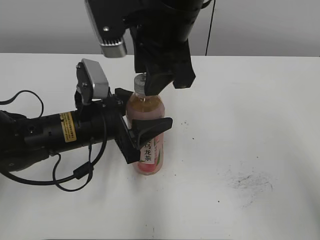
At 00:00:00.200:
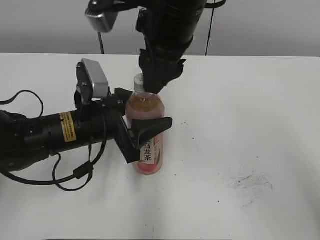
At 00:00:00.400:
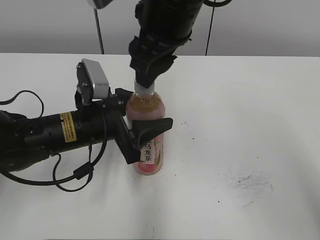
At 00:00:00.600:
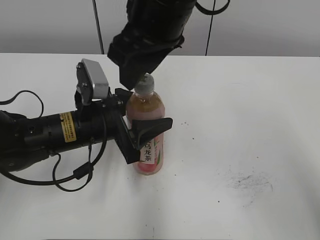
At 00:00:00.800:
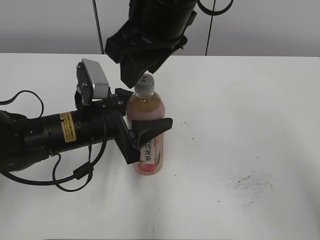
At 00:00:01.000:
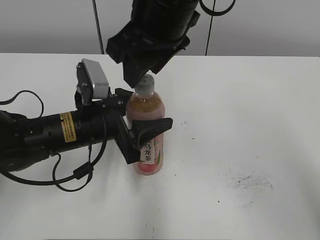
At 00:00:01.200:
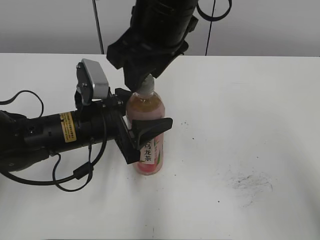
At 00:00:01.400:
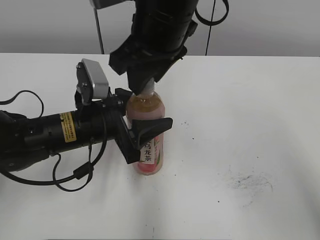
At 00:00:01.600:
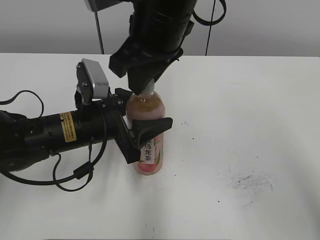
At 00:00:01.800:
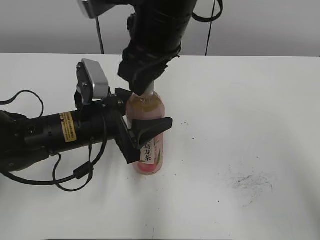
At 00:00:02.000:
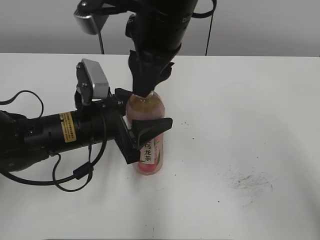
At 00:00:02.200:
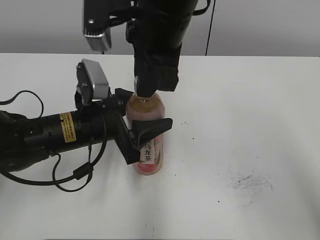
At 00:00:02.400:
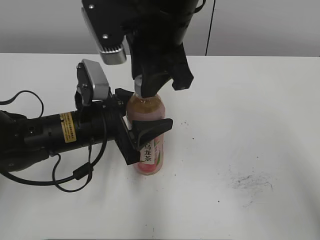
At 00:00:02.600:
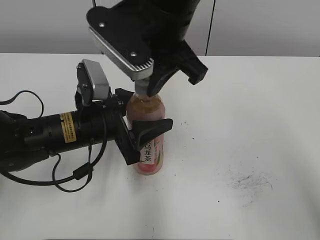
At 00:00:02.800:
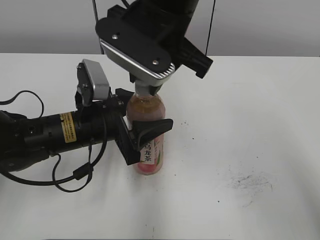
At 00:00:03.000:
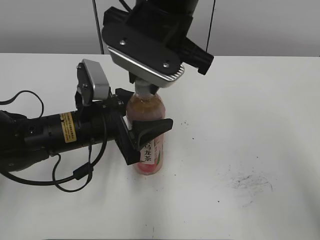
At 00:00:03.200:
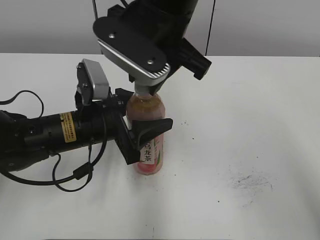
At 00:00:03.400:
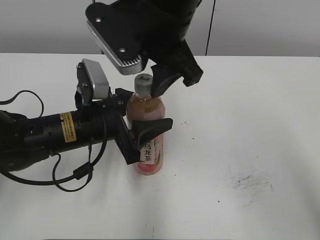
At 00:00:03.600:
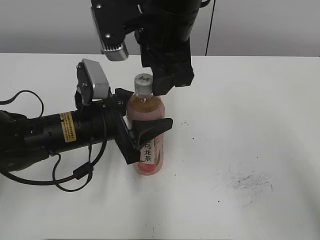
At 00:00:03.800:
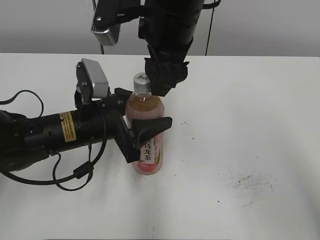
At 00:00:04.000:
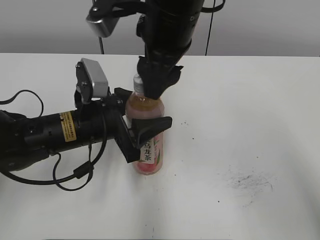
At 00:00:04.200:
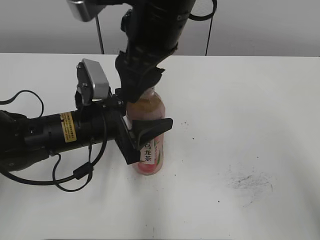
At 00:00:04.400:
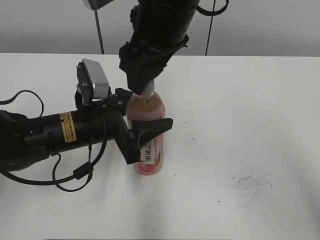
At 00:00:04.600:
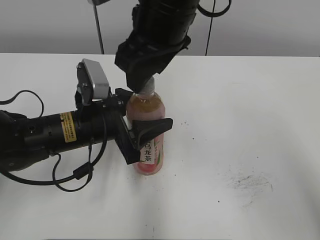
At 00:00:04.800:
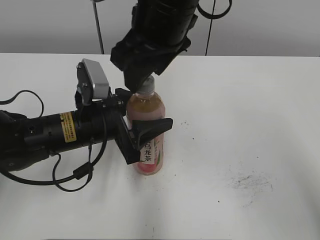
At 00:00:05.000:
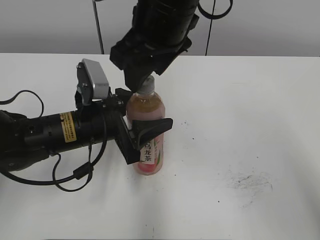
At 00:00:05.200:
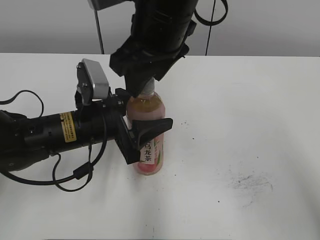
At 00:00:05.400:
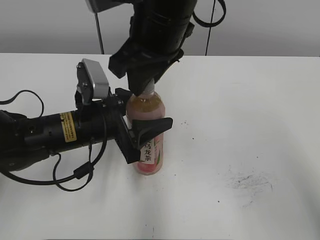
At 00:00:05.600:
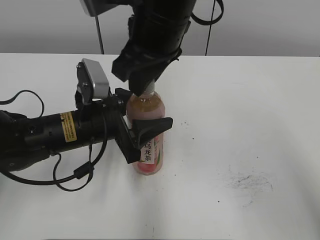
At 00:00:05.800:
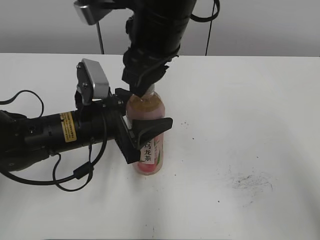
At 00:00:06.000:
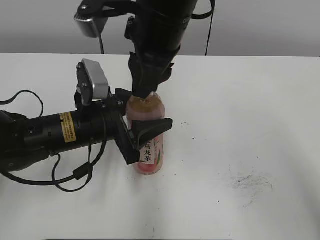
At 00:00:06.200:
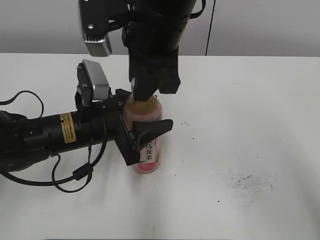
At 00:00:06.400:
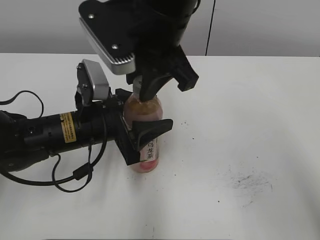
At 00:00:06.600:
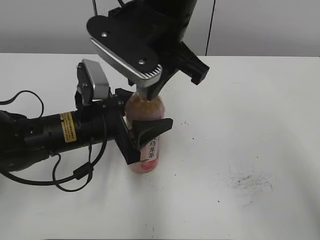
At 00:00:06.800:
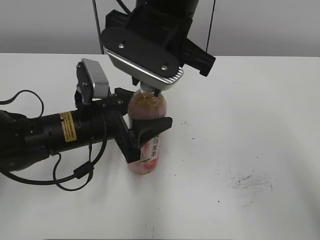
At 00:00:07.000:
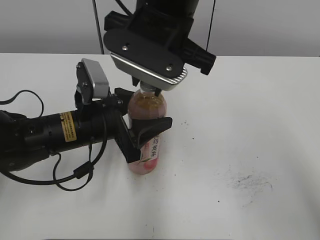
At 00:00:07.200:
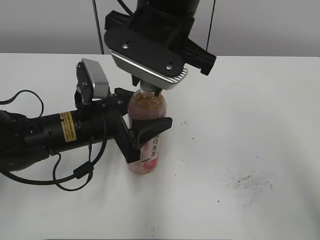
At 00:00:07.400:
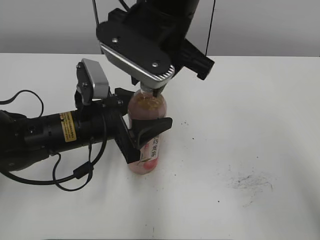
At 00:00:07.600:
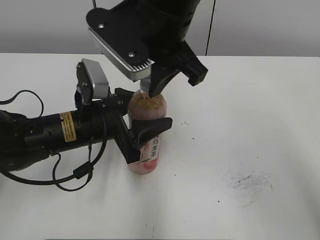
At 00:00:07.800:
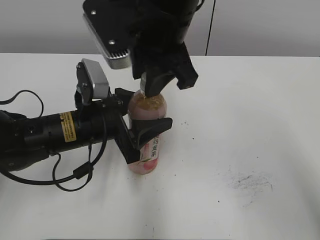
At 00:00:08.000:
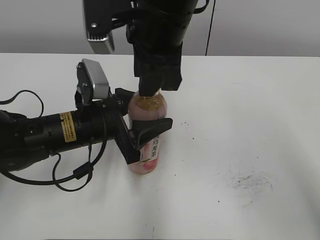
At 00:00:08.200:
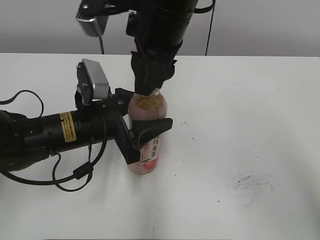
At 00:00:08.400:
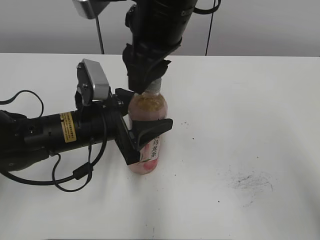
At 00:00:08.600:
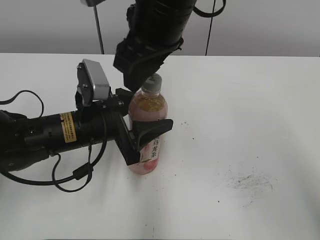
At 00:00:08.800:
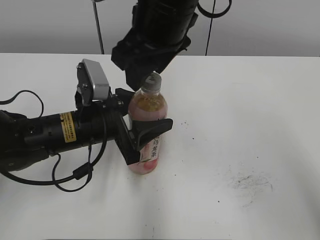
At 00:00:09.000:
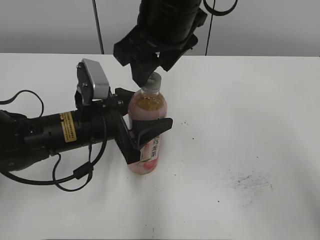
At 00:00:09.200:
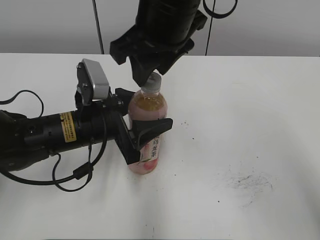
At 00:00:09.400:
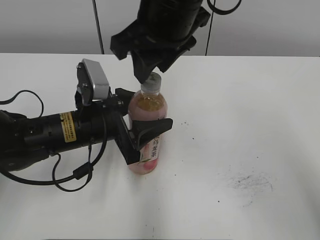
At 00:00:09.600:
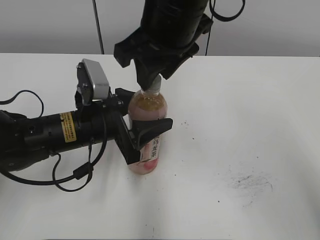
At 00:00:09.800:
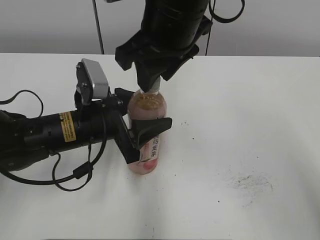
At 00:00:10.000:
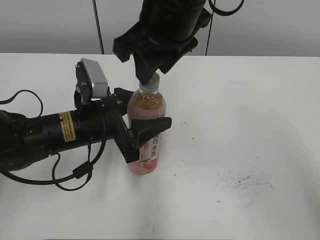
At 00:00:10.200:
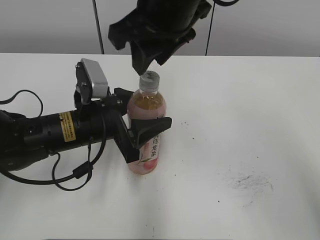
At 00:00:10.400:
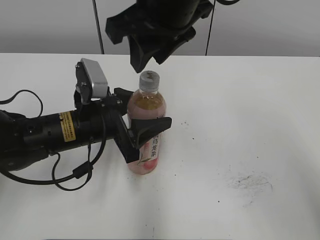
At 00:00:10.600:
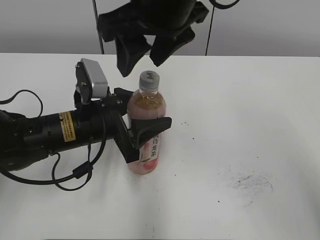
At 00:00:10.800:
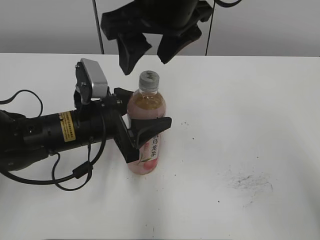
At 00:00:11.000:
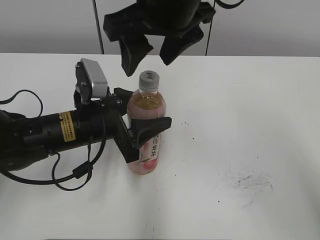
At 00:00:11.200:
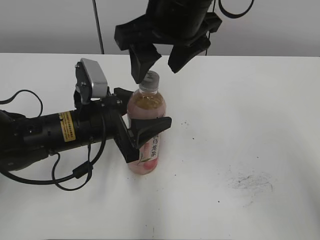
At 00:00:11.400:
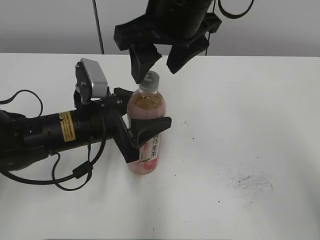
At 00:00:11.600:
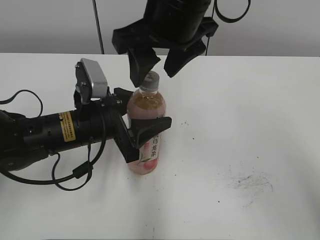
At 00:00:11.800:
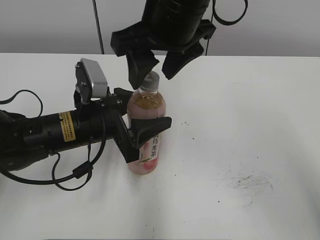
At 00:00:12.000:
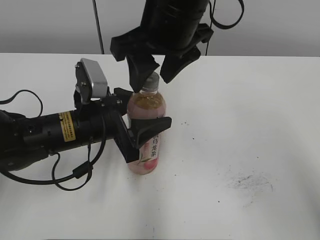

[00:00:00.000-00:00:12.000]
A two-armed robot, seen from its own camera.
00:00:03.000 to 00:00:04.400: The right gripper opens up.
00:00:04.400 to 00:00:06.000: The right gripper closes its fingers.
00:00:07.600 to 00:00:09.000: The right gripper opens its fingers.
00:00:09.000 to 00:00:10.400: The grippers stay close to where they were, moving slightly.
00:00:10.400 to 00:00:12.000: The right gripper opens.

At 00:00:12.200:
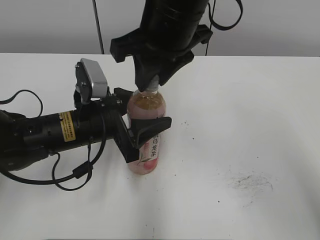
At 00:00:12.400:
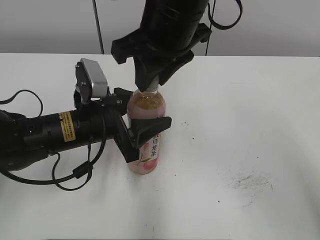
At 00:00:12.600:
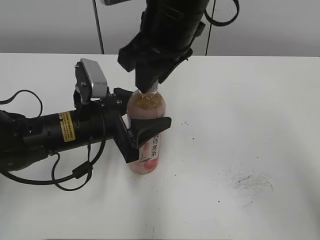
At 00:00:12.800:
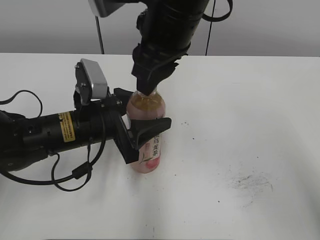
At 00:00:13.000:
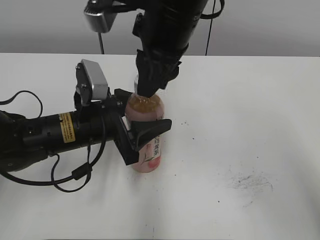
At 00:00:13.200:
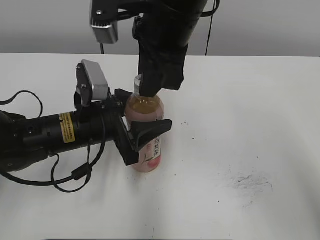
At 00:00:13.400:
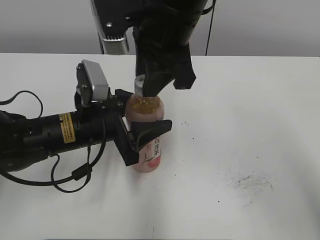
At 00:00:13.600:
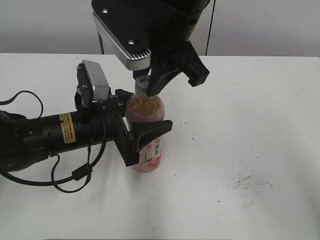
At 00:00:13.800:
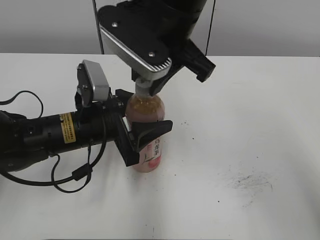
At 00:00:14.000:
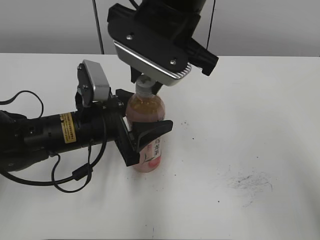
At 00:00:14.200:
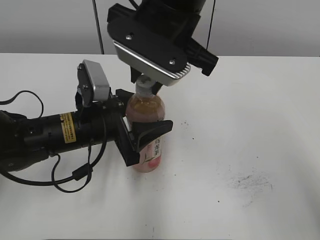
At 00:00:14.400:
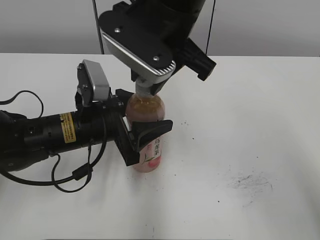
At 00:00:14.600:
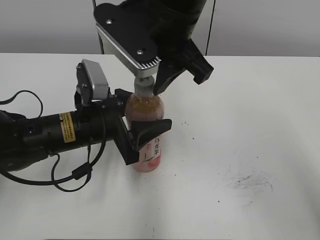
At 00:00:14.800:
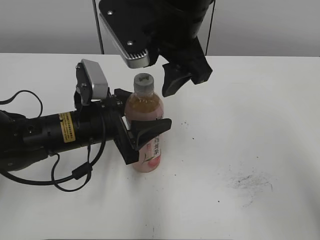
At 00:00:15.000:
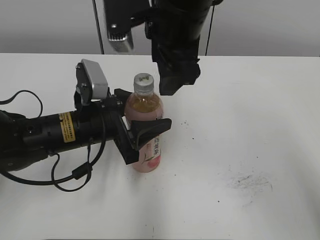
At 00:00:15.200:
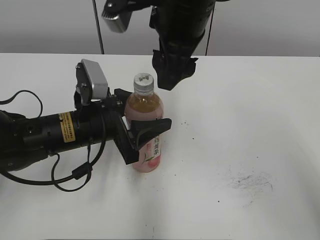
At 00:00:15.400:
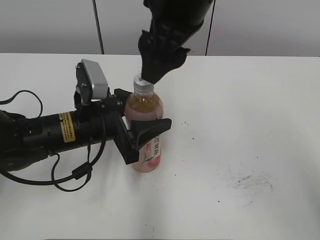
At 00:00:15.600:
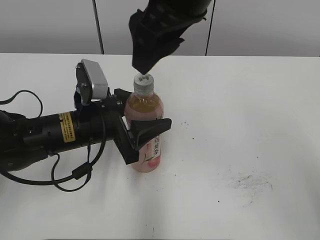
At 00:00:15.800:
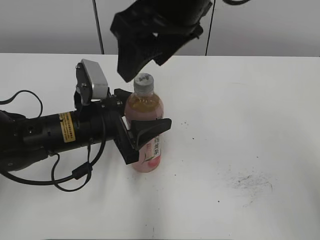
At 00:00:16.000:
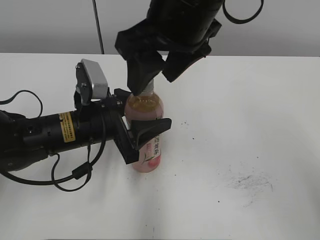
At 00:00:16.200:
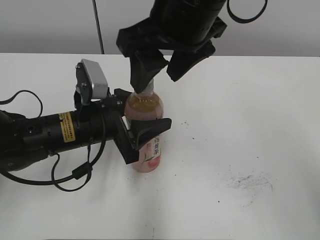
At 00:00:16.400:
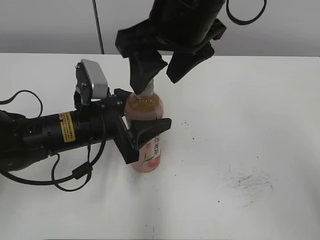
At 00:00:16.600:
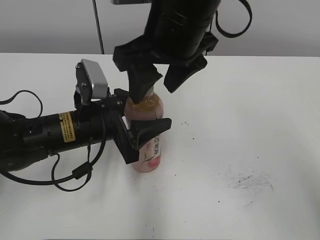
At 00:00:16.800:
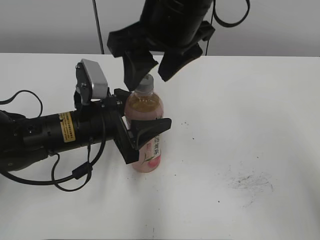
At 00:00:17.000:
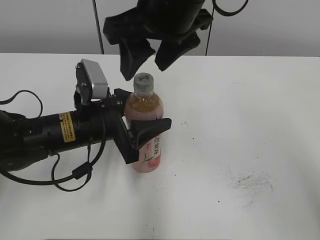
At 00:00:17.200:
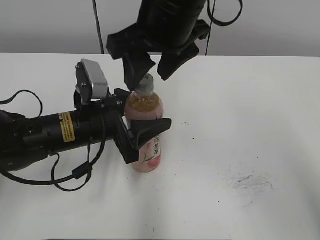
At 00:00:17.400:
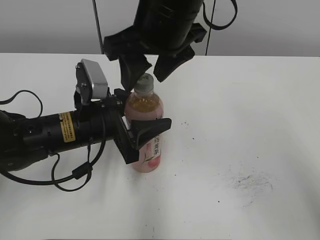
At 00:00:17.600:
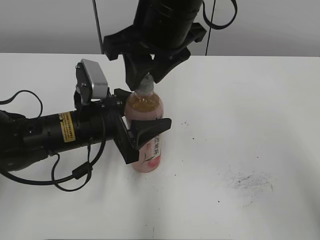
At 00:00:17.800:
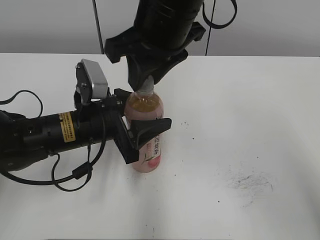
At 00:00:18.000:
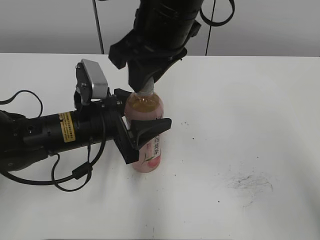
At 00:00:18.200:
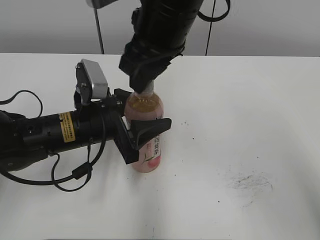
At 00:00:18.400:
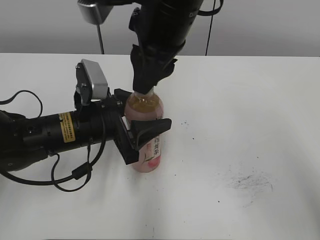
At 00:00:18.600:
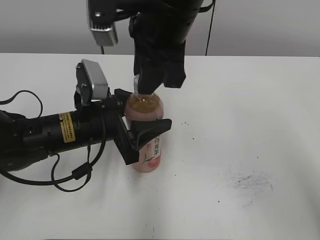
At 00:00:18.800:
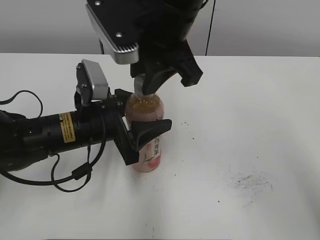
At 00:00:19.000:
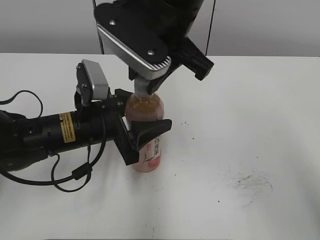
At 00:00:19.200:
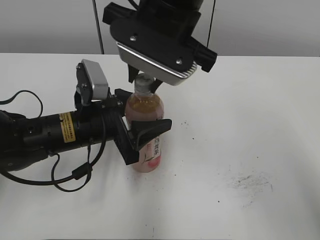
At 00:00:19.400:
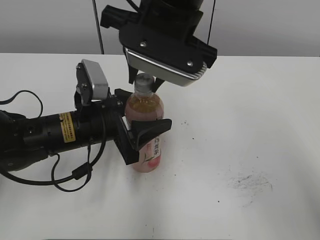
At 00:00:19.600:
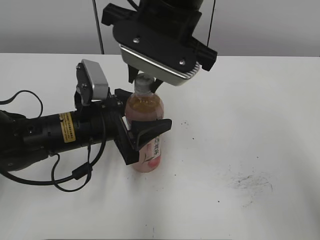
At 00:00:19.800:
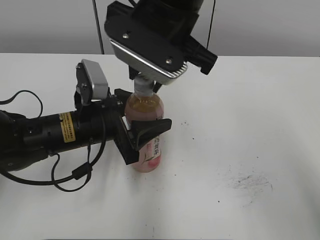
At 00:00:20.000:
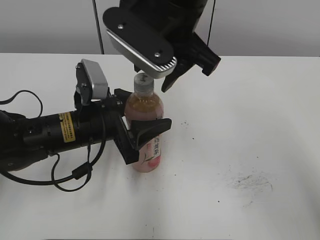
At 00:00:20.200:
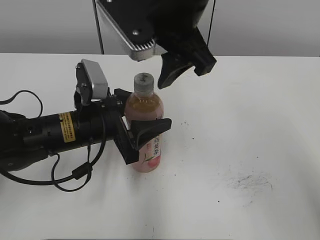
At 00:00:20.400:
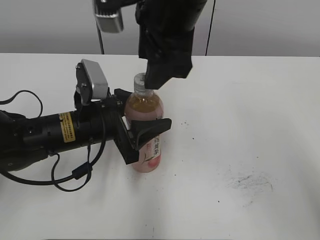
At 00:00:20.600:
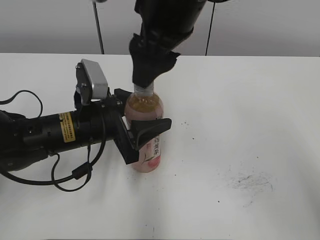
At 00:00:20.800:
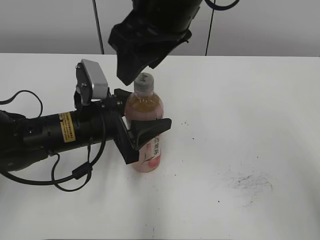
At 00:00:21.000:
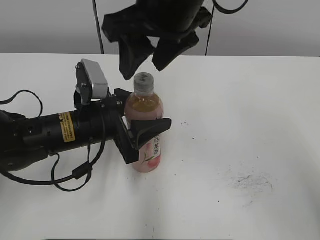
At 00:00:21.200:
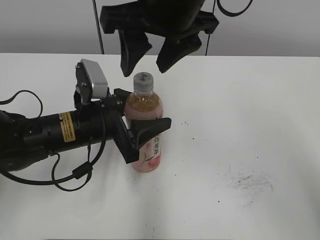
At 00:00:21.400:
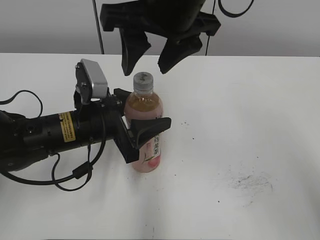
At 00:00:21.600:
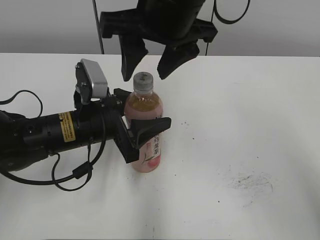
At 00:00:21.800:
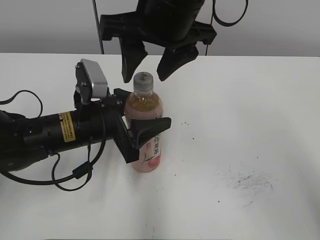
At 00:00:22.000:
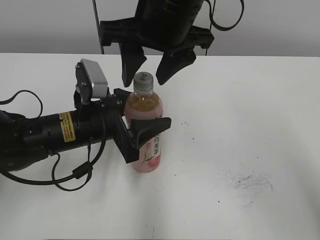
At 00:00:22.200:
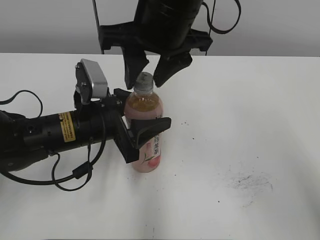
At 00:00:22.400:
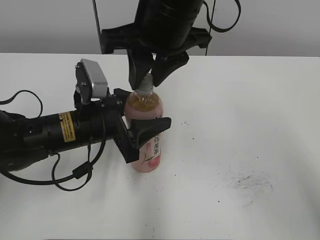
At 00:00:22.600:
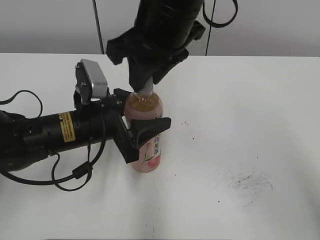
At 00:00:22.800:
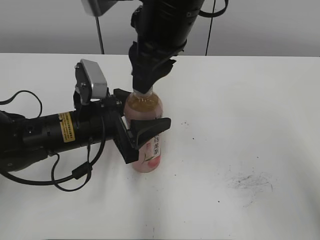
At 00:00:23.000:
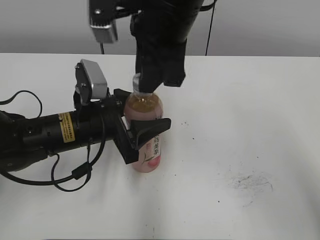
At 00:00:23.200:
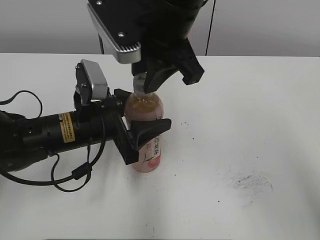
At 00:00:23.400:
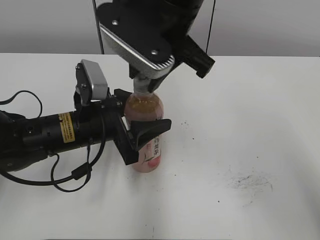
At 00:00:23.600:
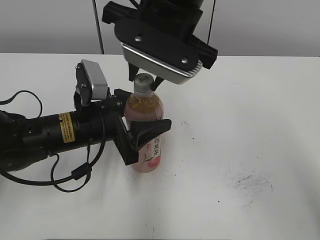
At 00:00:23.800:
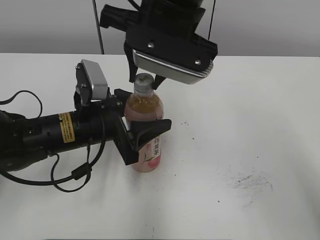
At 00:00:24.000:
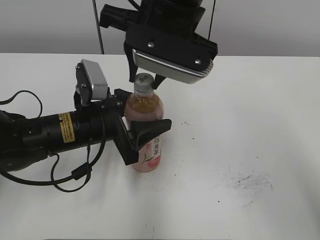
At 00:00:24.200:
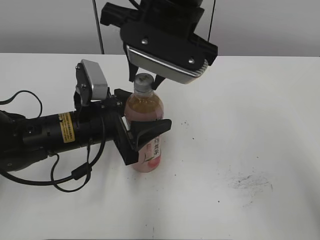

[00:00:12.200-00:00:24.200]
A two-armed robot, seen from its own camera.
00:00:13.800 to 00:00:15.200: The right gripper opens its fingers.
00:00:16.600 to 00:00:18.200: The right gripper closes its fingers.
00:00:19.800 to 00:00:21.200: The right gripper opens its fingers.
00:00:21.200 to 00:00:22.600: The right gripper closes its fingers.
